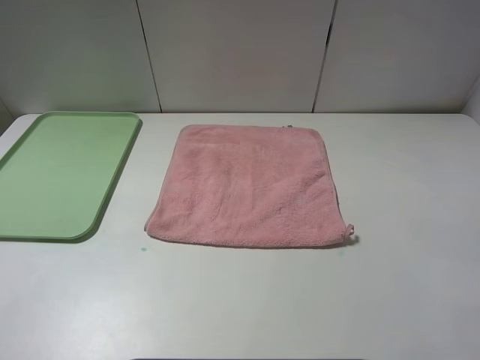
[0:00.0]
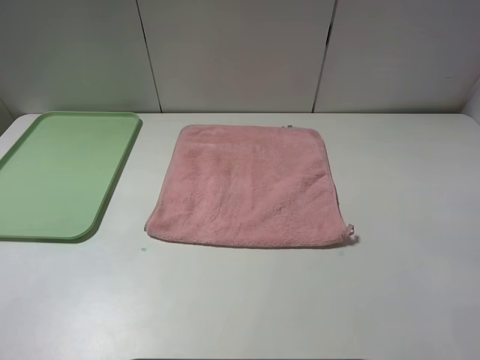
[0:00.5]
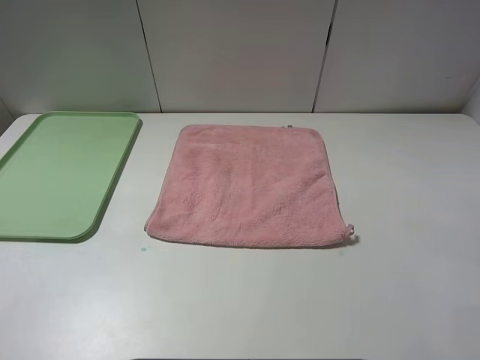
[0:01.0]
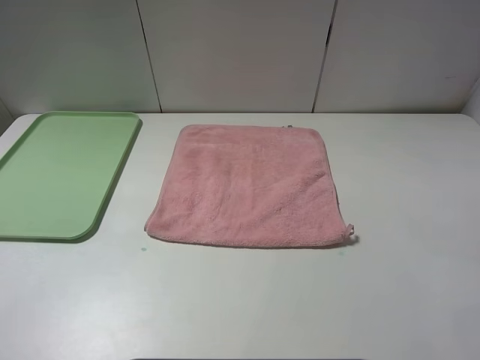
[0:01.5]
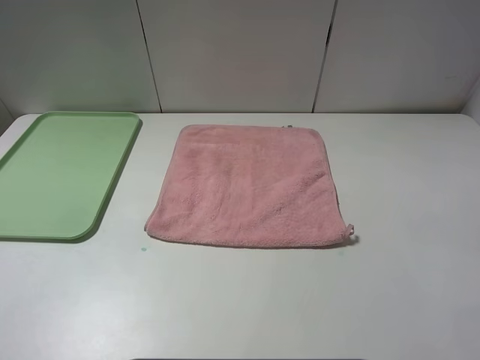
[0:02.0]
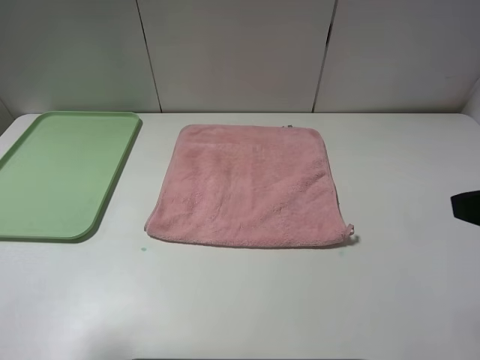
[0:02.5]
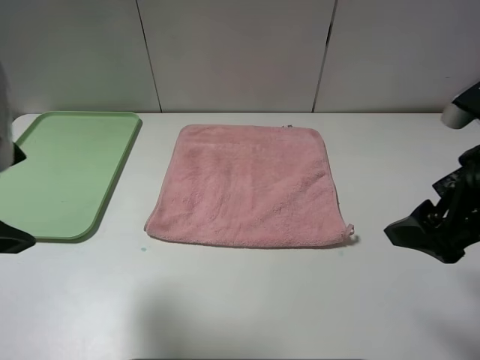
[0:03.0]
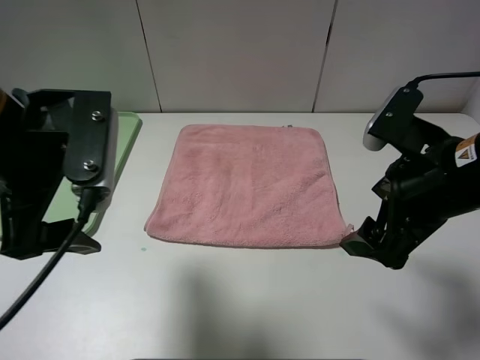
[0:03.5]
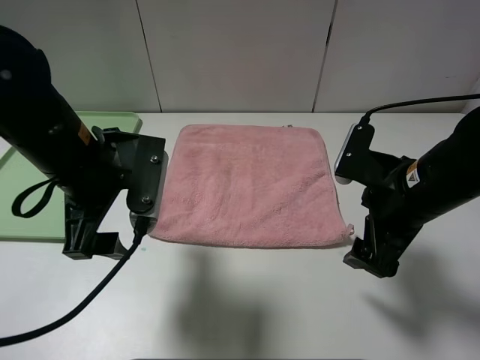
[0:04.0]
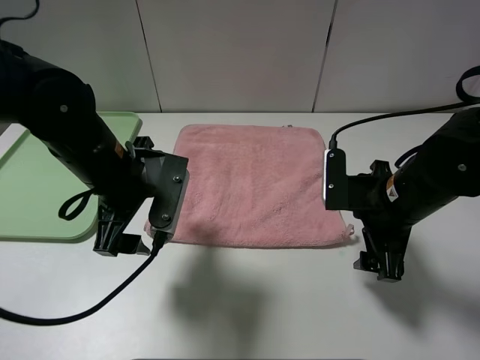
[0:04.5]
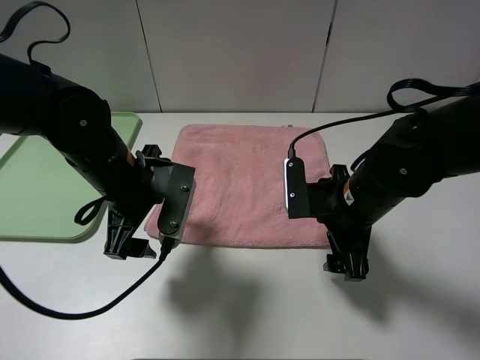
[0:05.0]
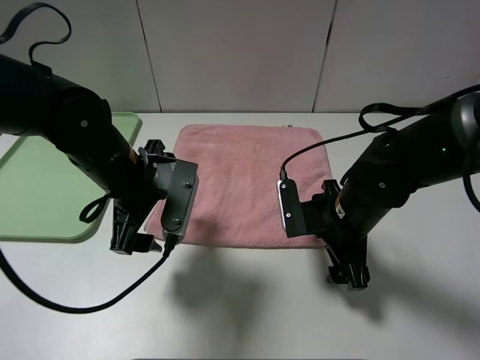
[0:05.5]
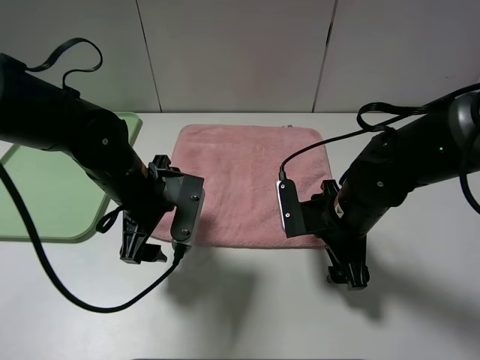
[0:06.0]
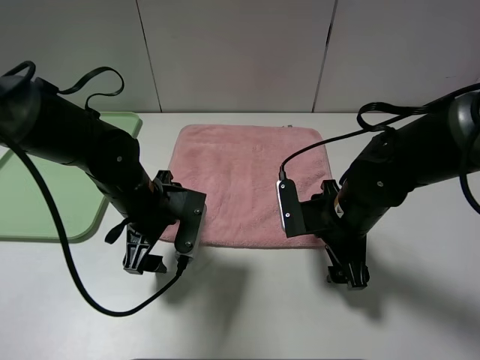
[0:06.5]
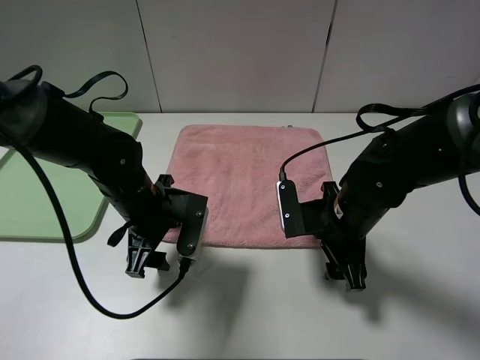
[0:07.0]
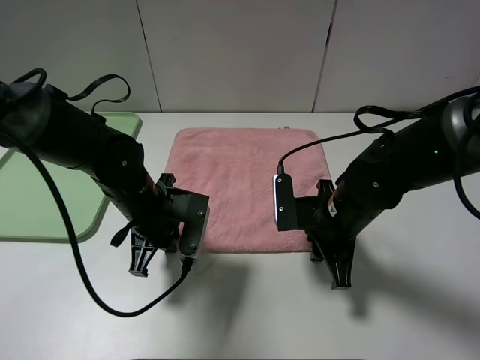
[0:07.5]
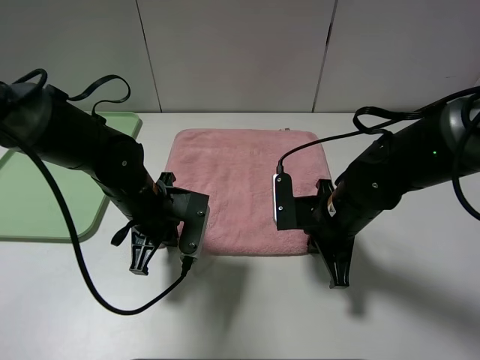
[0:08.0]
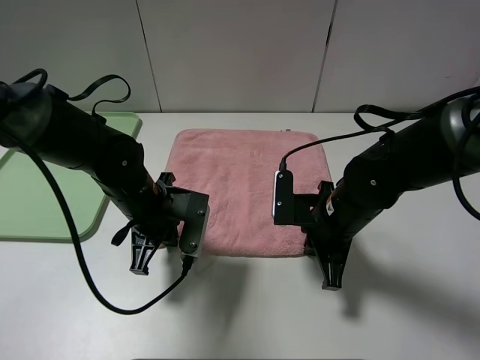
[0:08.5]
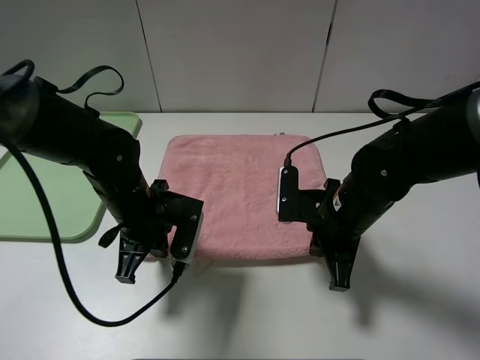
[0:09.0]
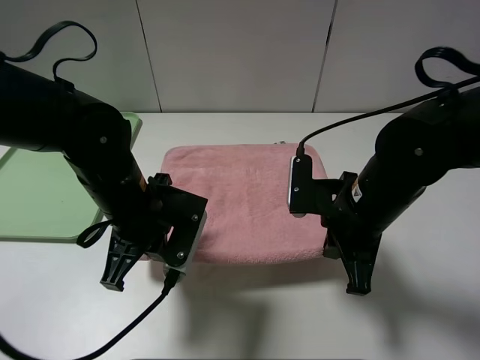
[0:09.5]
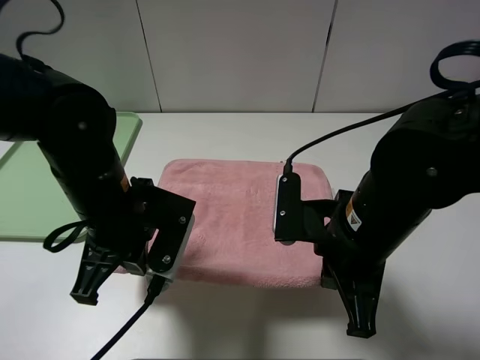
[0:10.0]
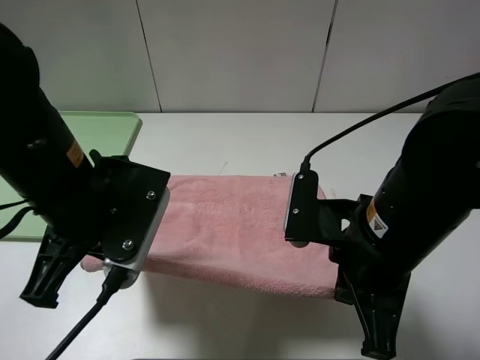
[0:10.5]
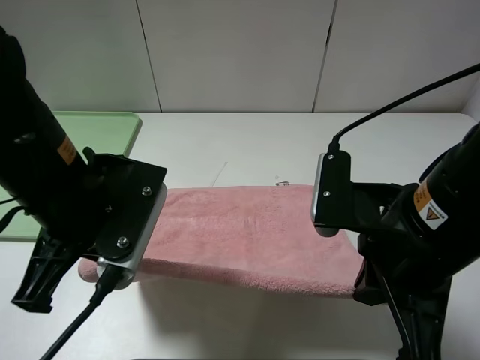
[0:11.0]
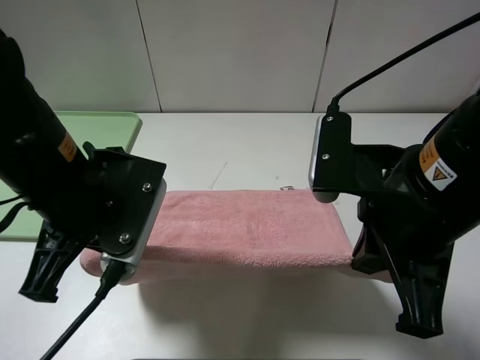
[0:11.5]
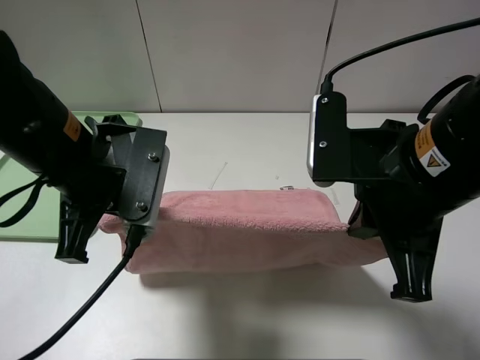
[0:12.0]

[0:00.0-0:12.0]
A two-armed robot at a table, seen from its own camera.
2.0 to 4.0 s: The left gripper moves forward, to the right and downward, approximately 30 cm. Meanwhile the right gripper moves forward, downward and to the left, about 25 cm.
4.0 to 6.0 s: Both grippers travel together downward, some 10 cm.
6.0 to 8.0 s: The left gripper closes up. Meanwhile the right gripper closes its fingers.
8.0 to 10.0 s: Both grippers travel together upward and backward, some 10 cm.
10.0 to 12.0 s: The grippers both shift upward by some 10 cm.

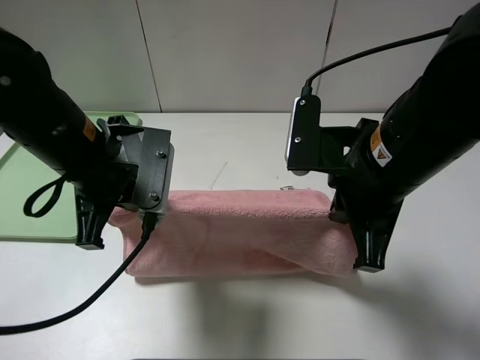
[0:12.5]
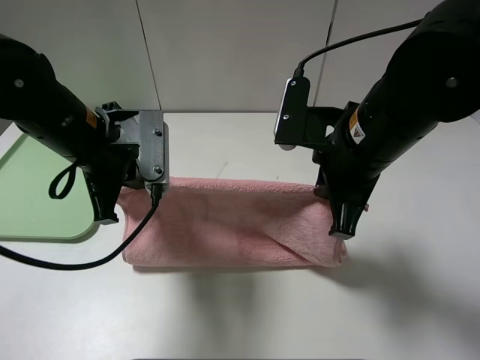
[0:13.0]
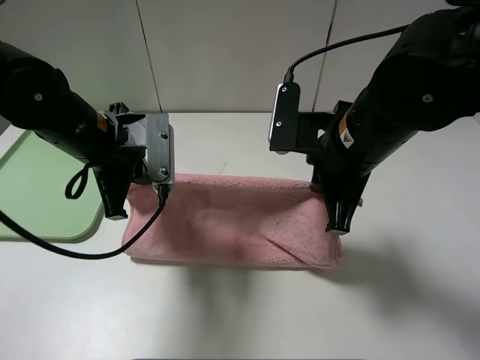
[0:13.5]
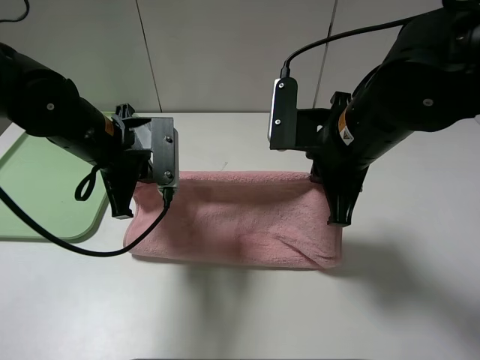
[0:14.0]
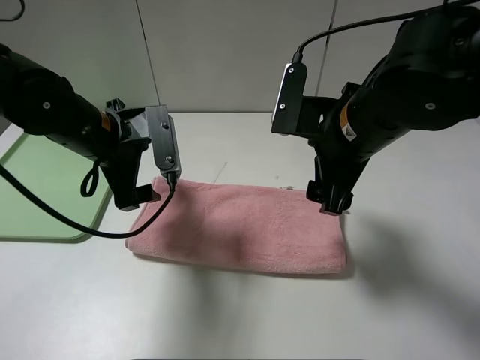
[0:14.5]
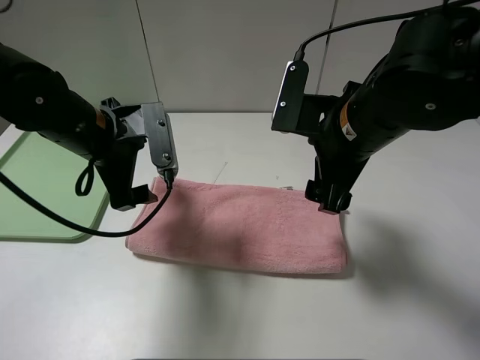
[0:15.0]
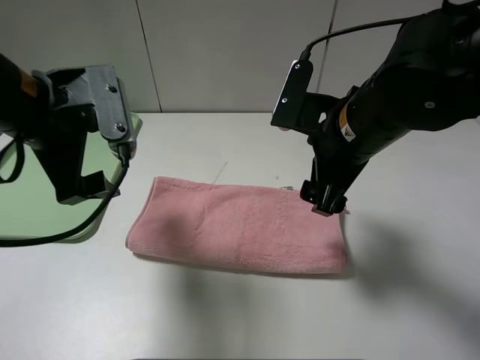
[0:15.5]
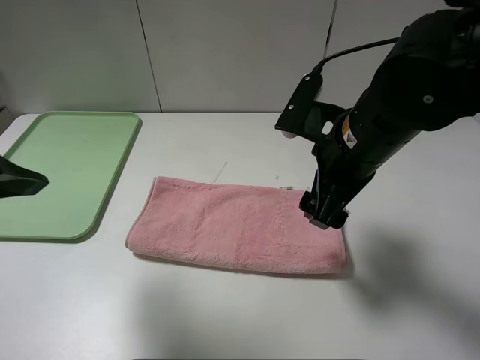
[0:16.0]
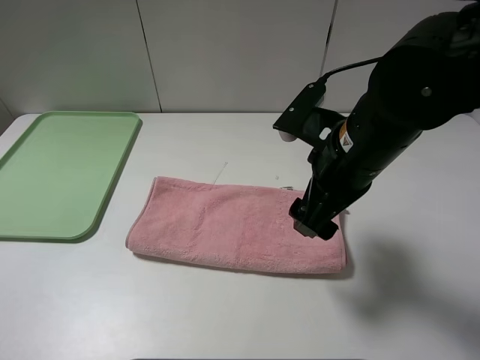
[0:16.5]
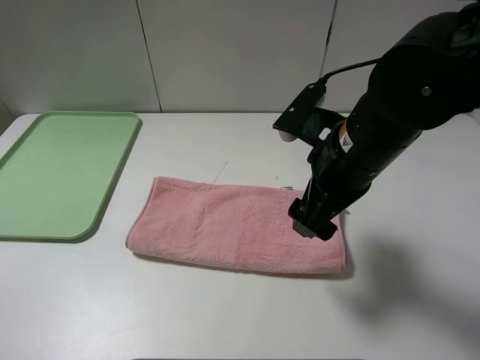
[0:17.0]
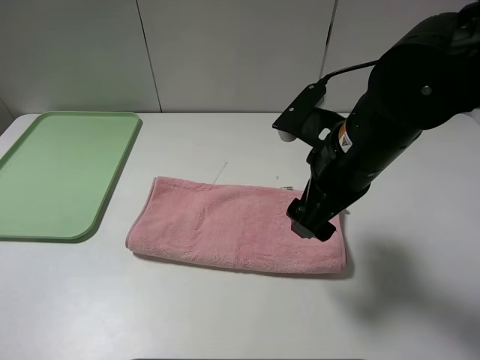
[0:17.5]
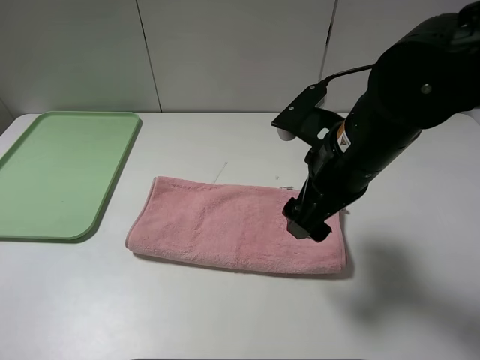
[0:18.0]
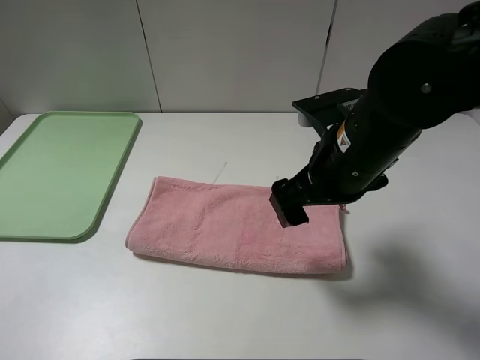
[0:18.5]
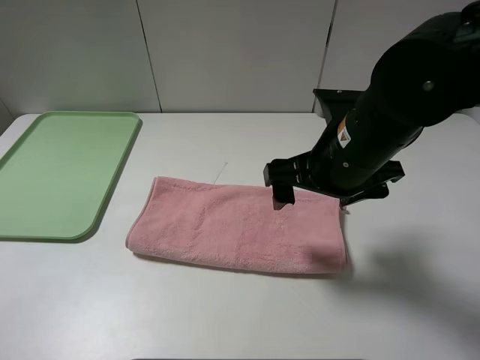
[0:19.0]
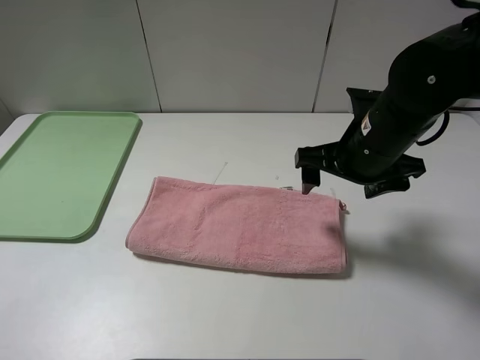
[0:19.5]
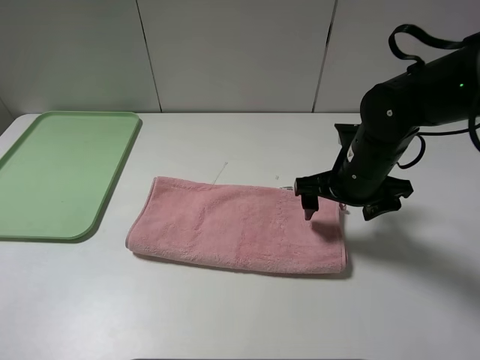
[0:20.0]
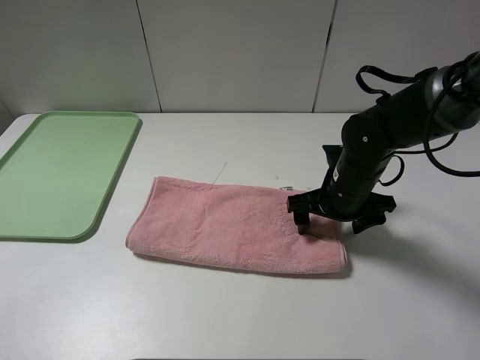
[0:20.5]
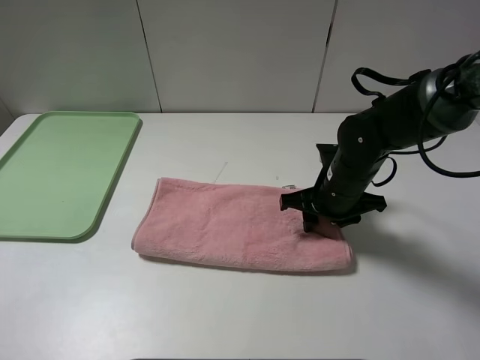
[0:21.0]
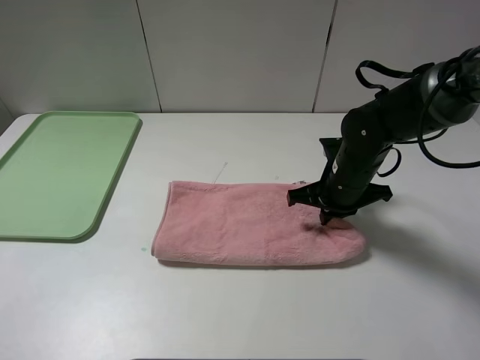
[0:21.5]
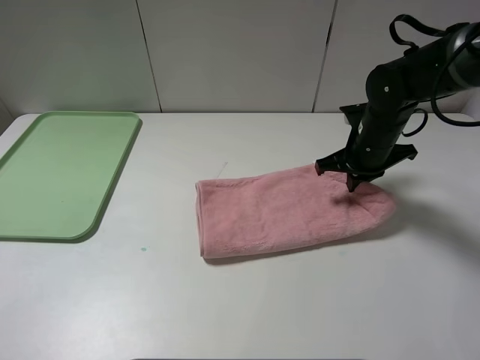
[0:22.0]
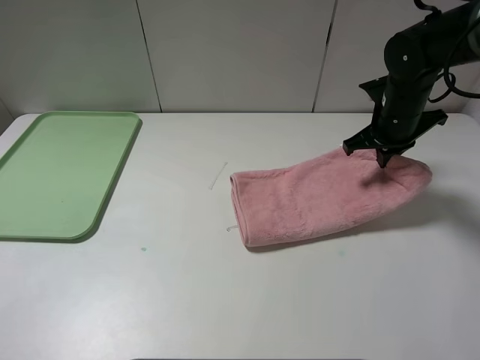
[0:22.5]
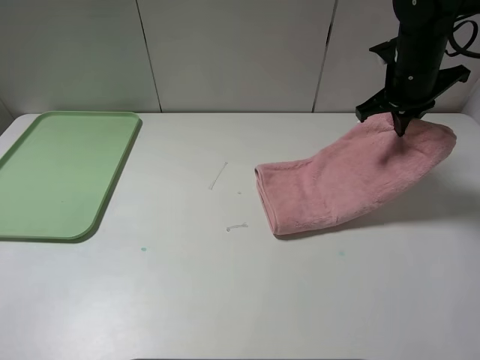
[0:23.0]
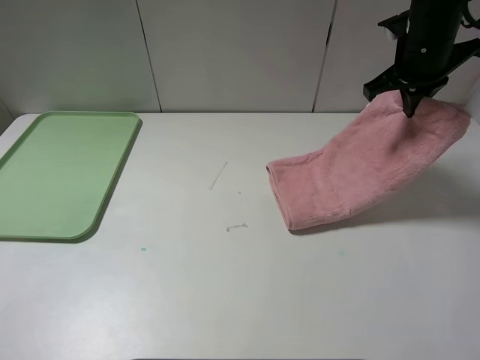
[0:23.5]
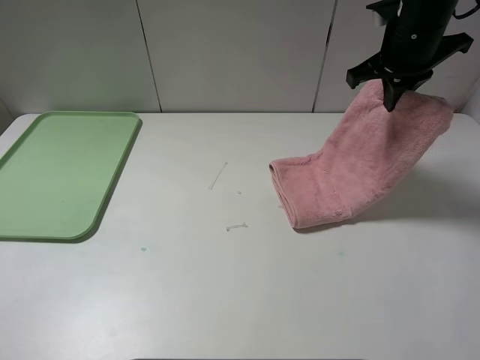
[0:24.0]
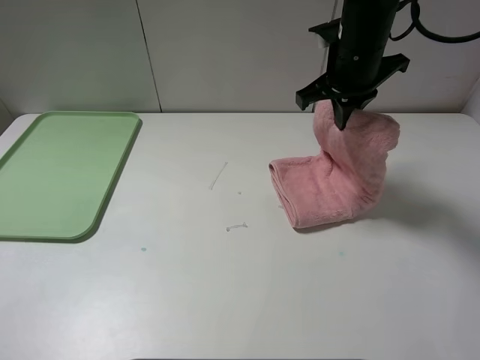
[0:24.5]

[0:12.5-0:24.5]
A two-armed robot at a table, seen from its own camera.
Step, 12.5 to 14.5 s: Fold the pink towel upwards.
12.5 to 14.5 s: Both grippers move forward, roughly 5 cm. The left gripper opens its fingers; the right gripper opens.
14.5 to 16.5 s: The left gripper is displaced backward, upward and to the left by about 35 cm.
16.5 to 18.5 s: The left gripper is displaced downward by some 10 cm.
18.5 to 20.5 s: The right gripper moves downward and forward, roughly 15 cm.
20.5 to 22.5 s: The right gripper is displaced forward, to the right and upward by about 15 cm, and closes up.
22.5 to 24.5 s: The right gripper goes some 15 cm to the left and upward.

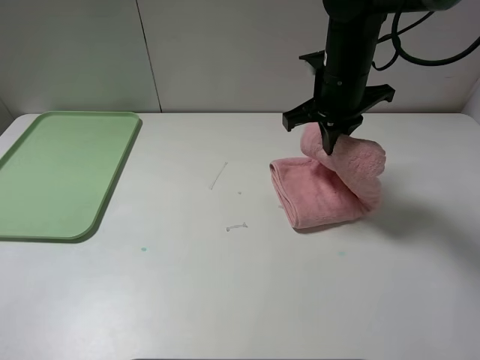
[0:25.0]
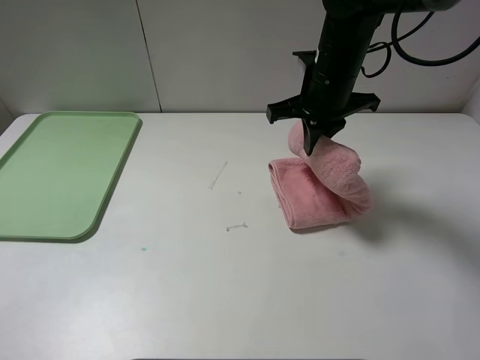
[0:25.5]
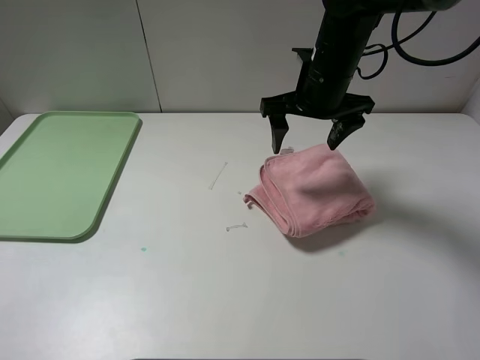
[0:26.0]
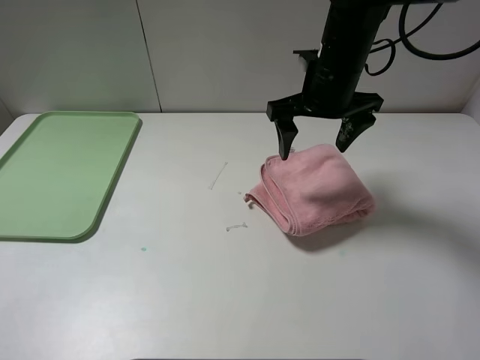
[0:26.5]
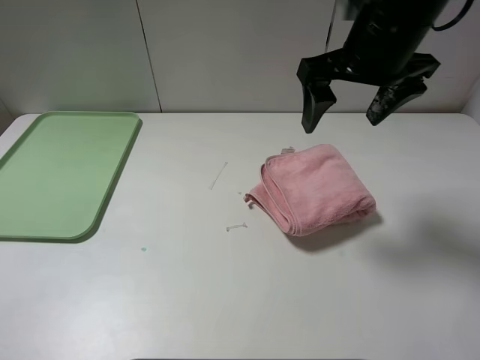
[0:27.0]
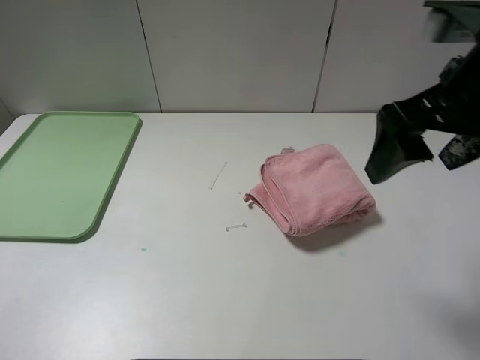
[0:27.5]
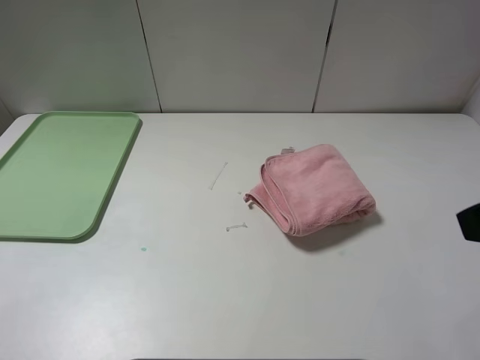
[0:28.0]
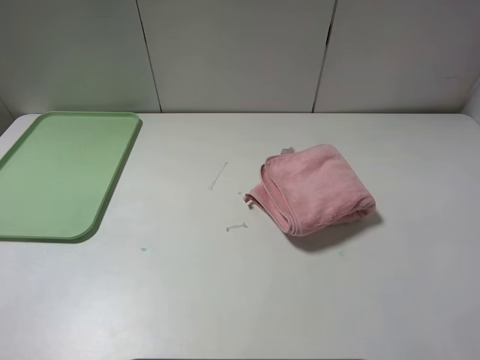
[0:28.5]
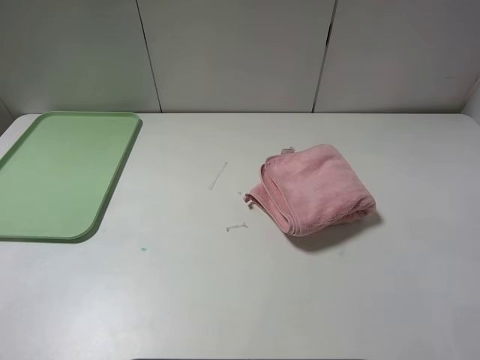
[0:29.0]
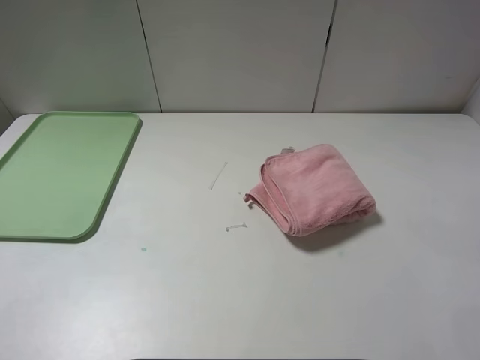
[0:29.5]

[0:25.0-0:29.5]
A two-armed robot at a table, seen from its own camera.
25.0 to 27.0 s: The right gripper shifts roughly 10 cm upward and backward, and opens up.
27.0 to 29.5 s: The right gripper travels backward and to the right by some 35 cm.
